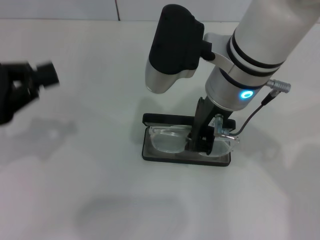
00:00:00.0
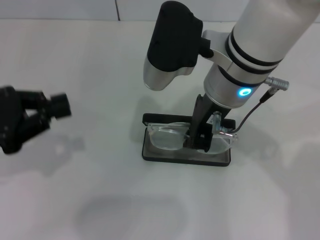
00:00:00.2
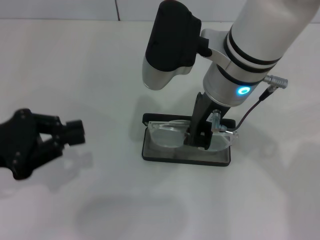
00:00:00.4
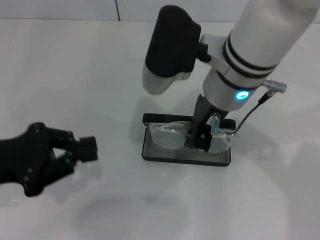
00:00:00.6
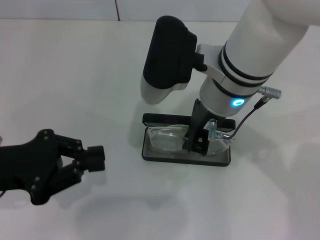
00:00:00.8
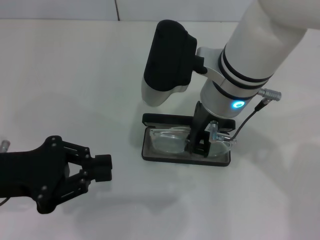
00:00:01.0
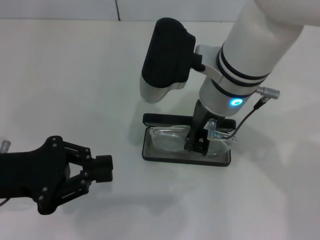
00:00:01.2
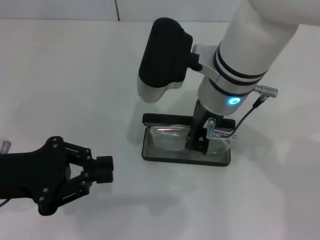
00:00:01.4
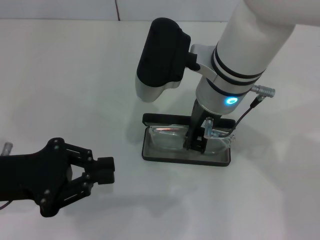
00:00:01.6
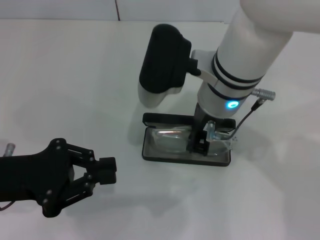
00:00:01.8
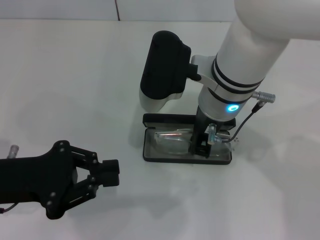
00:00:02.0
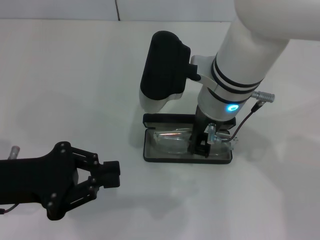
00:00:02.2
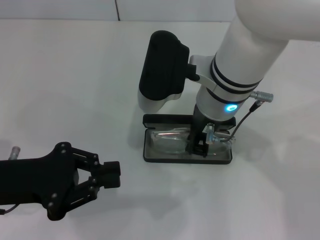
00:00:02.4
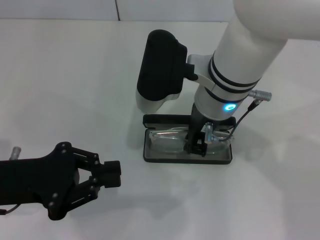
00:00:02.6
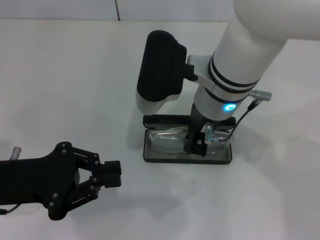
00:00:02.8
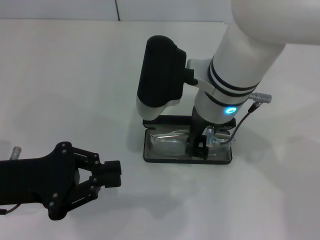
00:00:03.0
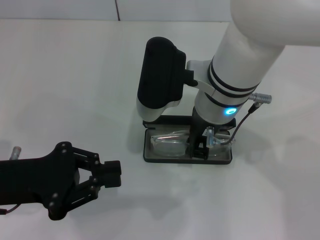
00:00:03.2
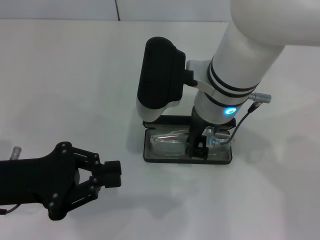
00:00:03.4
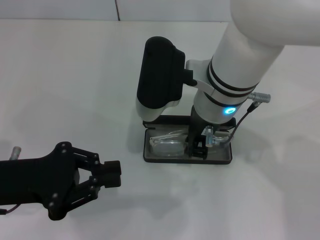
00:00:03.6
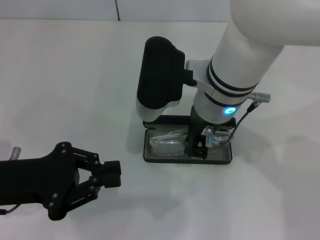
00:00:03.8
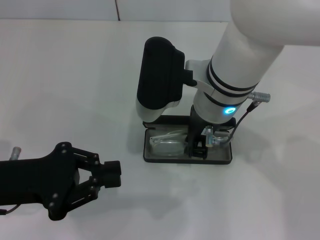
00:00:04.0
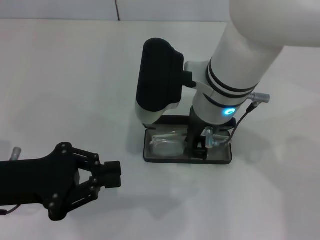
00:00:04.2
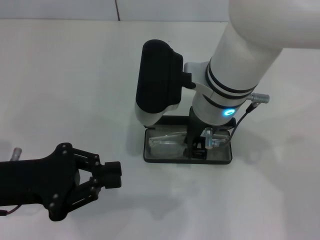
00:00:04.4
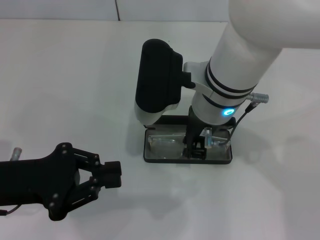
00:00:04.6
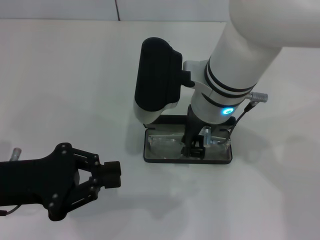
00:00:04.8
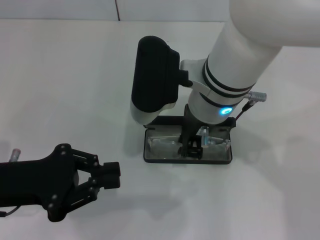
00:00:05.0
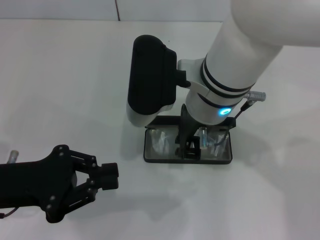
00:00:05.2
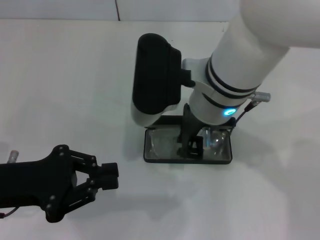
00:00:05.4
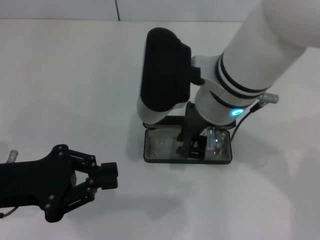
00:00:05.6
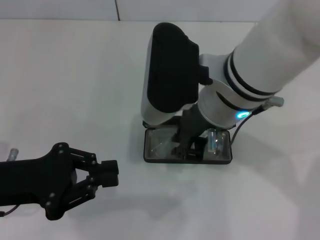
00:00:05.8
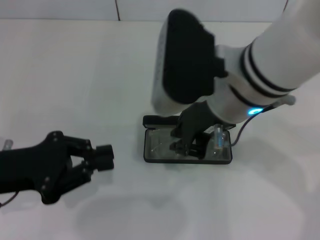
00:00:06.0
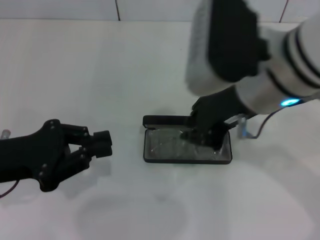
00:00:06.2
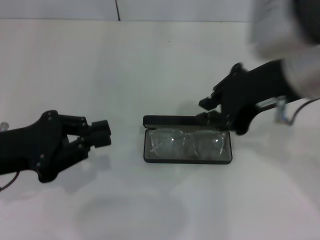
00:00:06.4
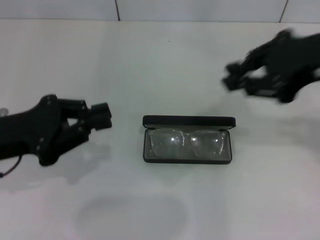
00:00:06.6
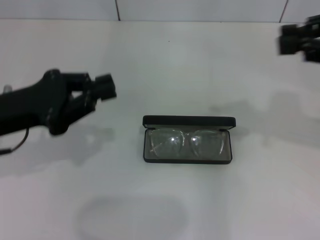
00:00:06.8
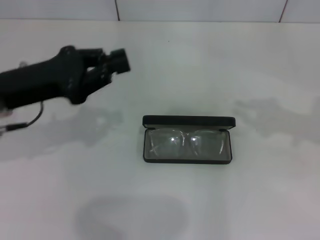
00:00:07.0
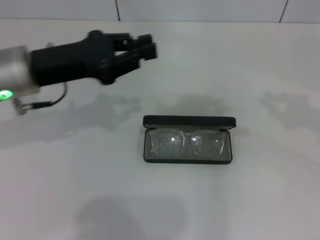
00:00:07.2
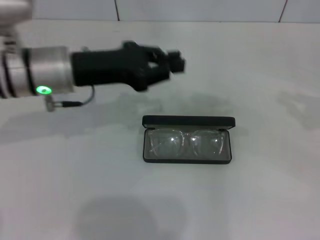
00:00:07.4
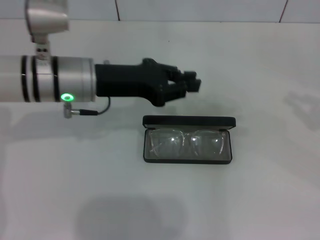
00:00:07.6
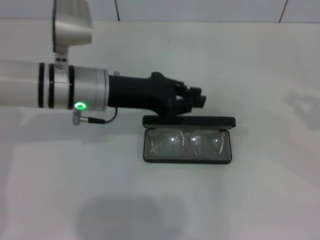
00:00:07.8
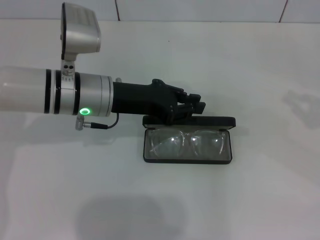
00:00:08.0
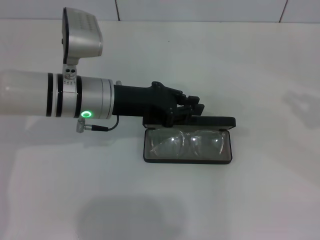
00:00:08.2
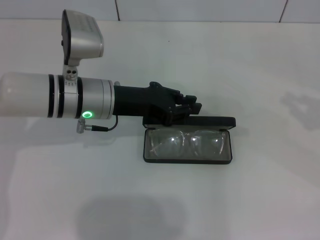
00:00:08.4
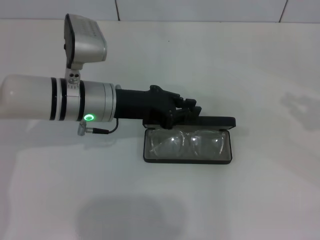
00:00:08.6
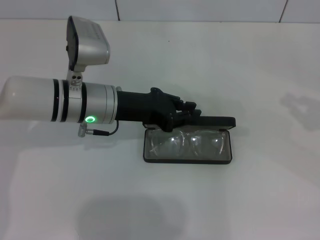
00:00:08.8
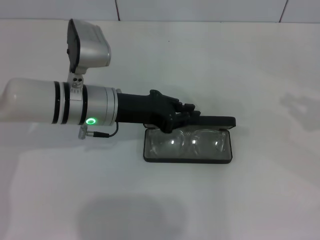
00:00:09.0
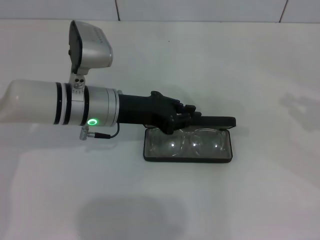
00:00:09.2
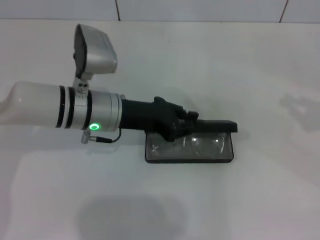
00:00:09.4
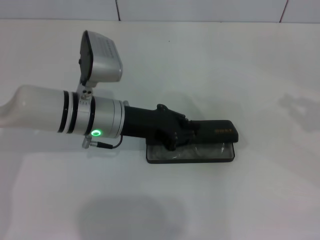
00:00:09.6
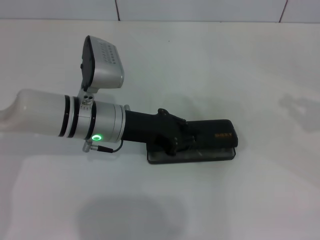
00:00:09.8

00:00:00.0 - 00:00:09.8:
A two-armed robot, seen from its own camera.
Step, 00:00:00.0 - 00:00:04.8: Put the glasses into the case with your right hand.
00:00:00.0 - 00:00:01.4: The left gripper shifts by approximately 5 cm.
00:00:01.4 - 00:00:02.8: There are only small adjustments of the grippers.
00:00:02.8 - 00:00:04.2: The two grippers keep their place.
00:00:04.2 - 00:00:05.6: The grippers stay close to where they were, moving slightly.
00:00:05.6 - 00:00:07.0: The left gripper heads forward, covering approximately 10 cm; the right gripper goes about 30 cm to the right.
00:00:07.0 - 00:00:08.4: The left gripper goes some 10 cm to the right and forward; the right gripper is displaced downward and to the right by roughly 10 cm.
00:00:08.4 - 00:00:09.8: There are only small adjustments of the grippers.

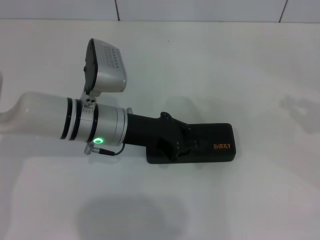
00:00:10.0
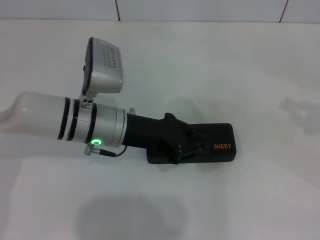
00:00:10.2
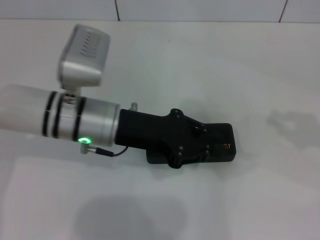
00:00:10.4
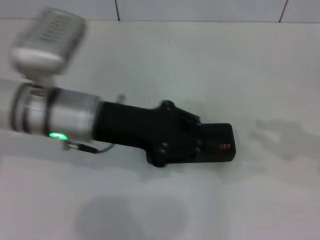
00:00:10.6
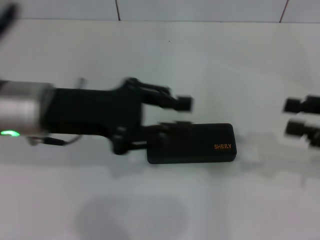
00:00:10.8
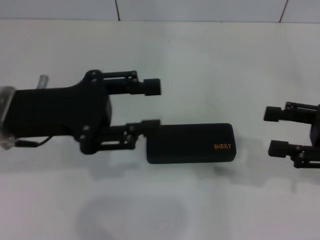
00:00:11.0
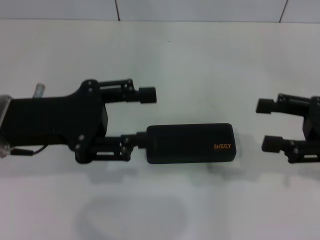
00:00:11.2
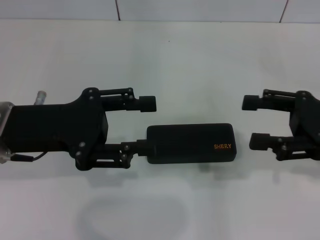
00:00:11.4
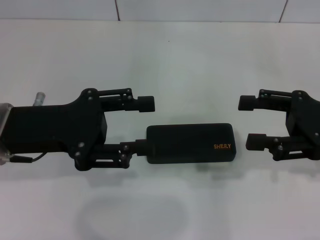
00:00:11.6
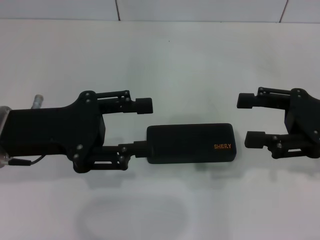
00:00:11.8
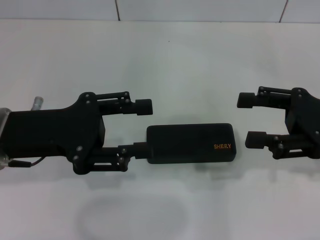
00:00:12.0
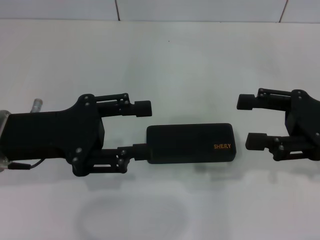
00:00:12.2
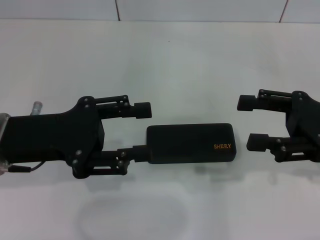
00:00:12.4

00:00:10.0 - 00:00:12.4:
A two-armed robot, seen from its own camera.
00:00:10.0 - 00:00:11.2: The right gripper shifts some 10 cm to the left, and opens, while the left gripper goes about 15 cm to the left, upward and backward, and opens.
00:00:11.2 - 00:00:12.4: The grippers make only small movements.
